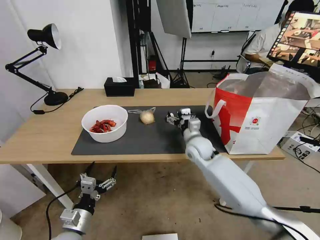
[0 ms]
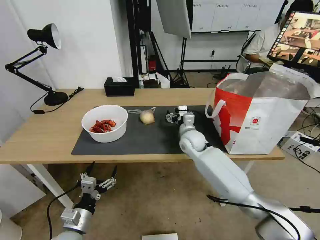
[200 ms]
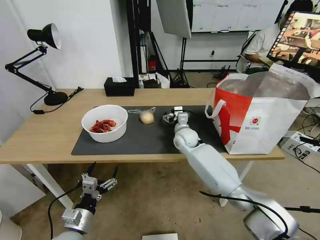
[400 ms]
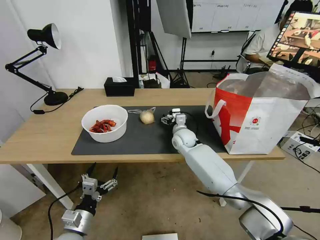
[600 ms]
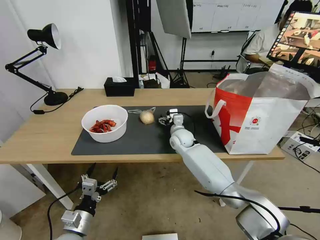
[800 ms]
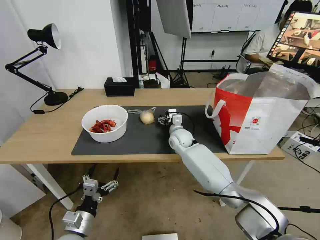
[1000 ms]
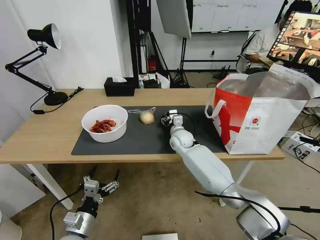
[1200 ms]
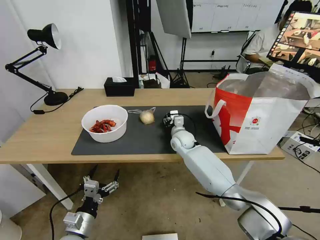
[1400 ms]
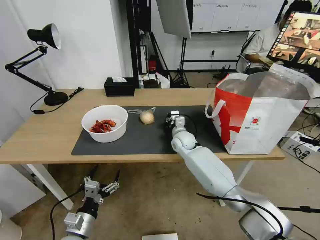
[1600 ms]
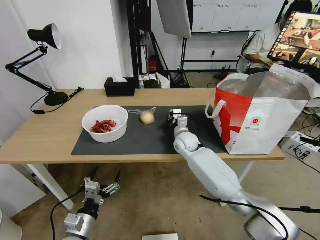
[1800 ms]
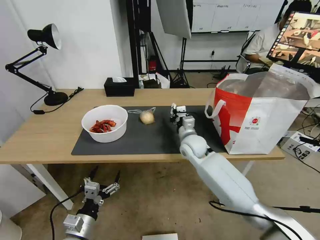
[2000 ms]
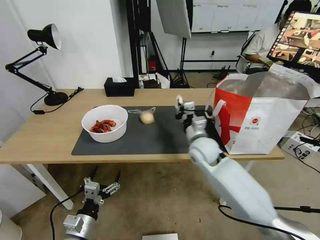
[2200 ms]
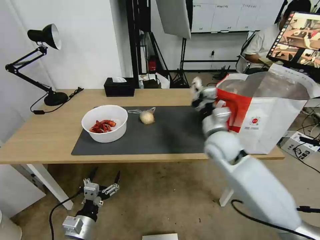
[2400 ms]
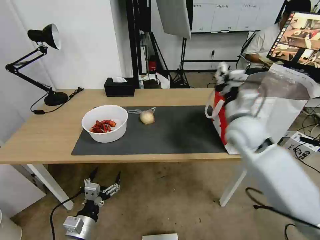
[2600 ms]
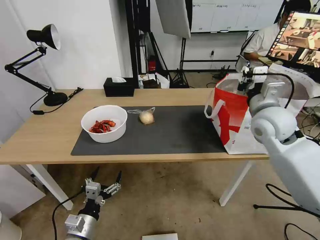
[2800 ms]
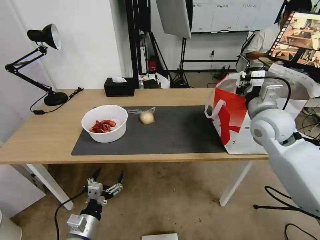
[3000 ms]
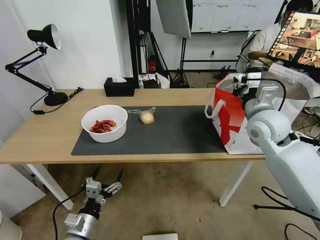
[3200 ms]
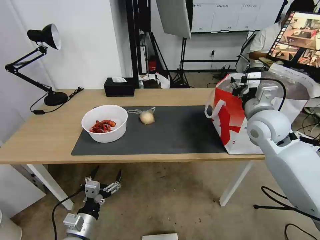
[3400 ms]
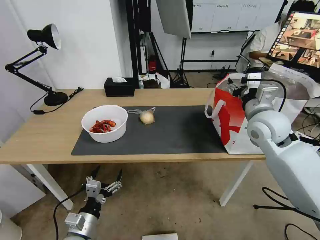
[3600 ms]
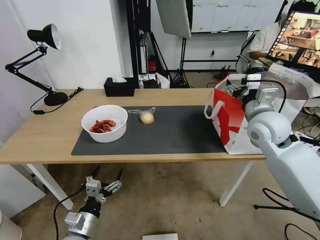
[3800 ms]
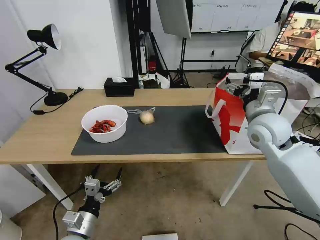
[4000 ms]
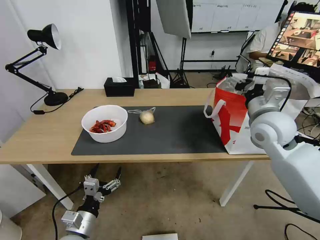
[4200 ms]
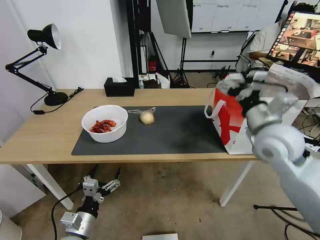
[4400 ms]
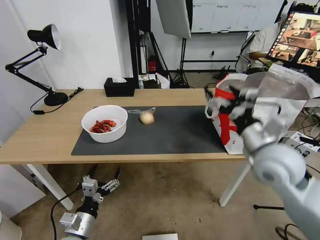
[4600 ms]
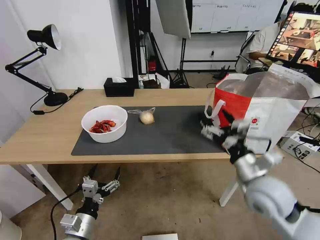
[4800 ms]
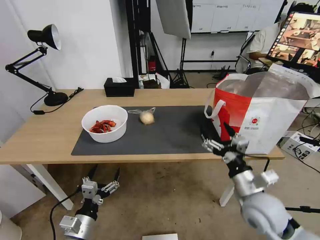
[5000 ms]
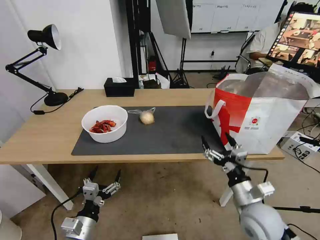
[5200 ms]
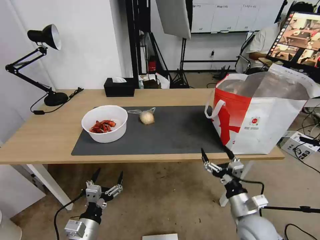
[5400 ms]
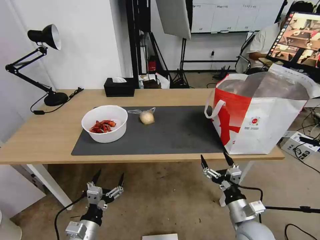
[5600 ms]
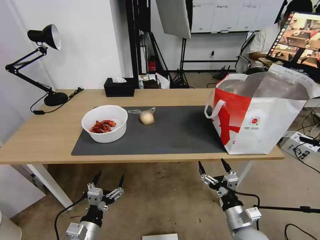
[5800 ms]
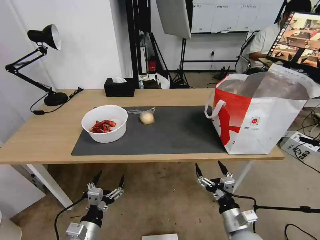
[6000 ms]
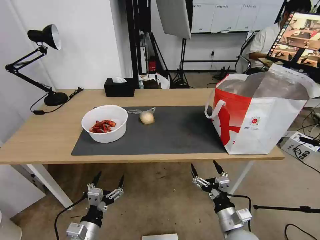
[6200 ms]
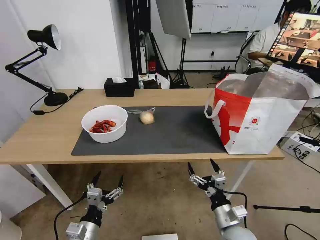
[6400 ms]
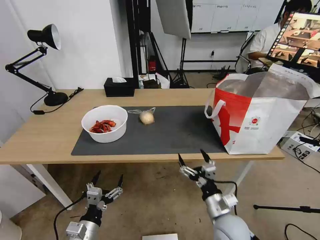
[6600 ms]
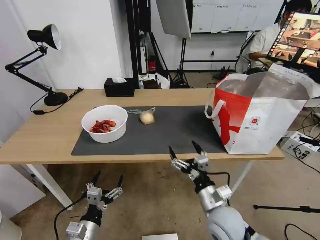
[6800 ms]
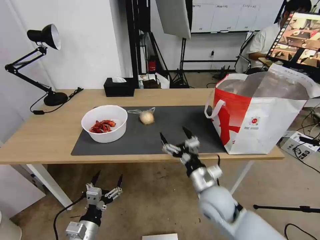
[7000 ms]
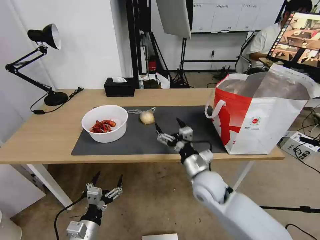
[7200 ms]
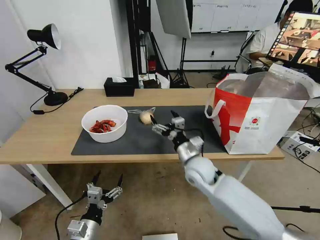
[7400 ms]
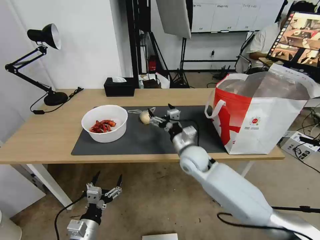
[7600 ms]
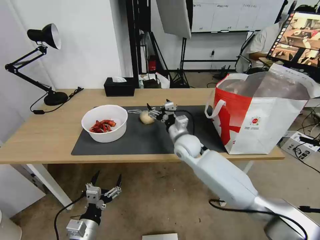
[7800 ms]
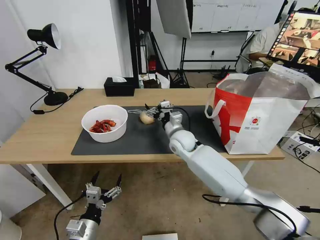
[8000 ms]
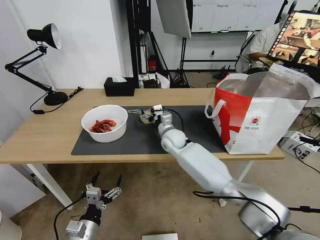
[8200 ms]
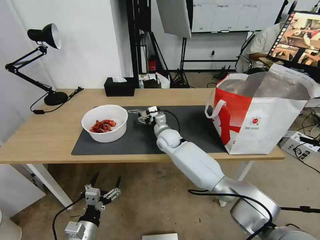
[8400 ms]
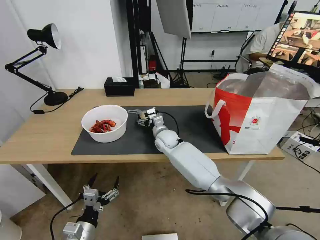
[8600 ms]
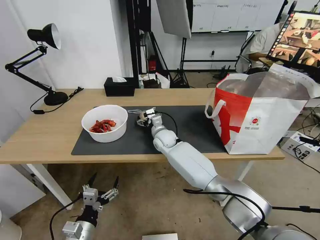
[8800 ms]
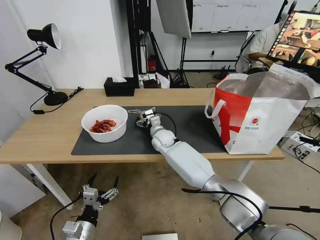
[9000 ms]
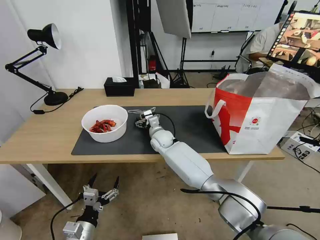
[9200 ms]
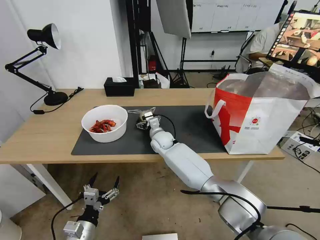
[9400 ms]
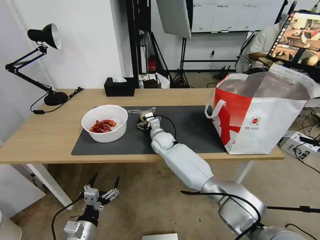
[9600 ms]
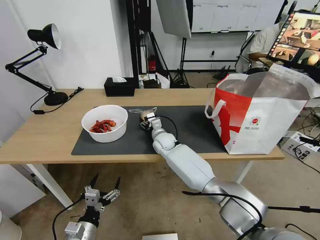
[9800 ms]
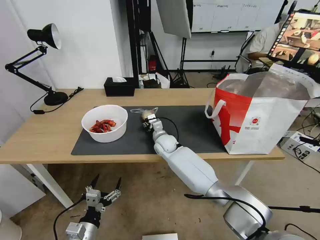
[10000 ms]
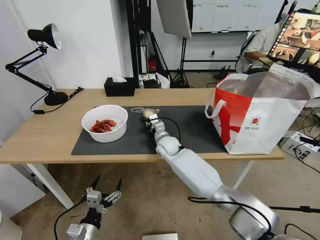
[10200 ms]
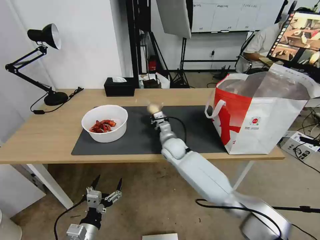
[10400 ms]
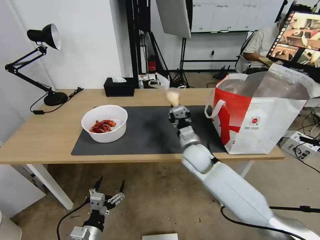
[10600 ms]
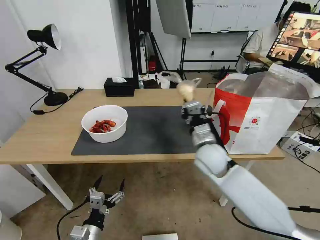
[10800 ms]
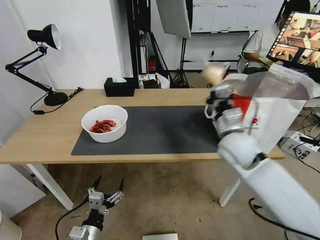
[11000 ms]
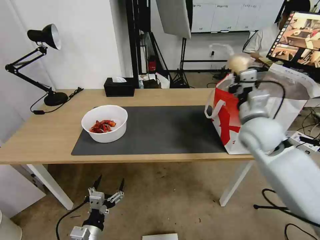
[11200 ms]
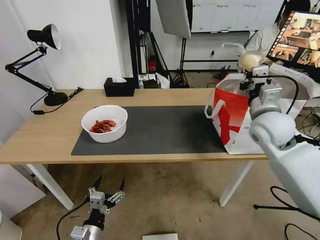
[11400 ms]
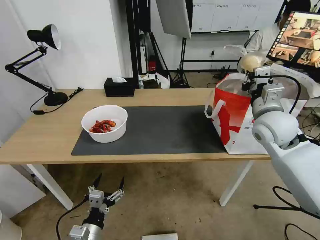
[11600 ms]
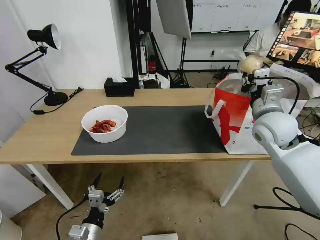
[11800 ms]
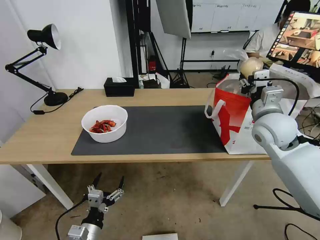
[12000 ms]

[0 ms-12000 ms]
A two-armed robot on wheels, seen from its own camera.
Task of the whole recording: Pick up the trash from the table and place it into the takeout bag.
0 ms to 1600 ms: The right gripper moves forward, approximately 5 cm, and closes up.
1600 ms to 3000 ms: The right gripper travels upward, to the right and backward by about 30 cm.
3000 ms to 4400 ms: The right gripper goes approximately 5 cm backward, and opens its fingers.
4400 ms to 6000 ms: The right gripper is displaced downward and backward by roughly 35 cm.
6000 ms to 7600 ms: The right gripper heads forward, to the left and upward, covering about 30 cm.
7600 ms to 9000 ms: The right gripper goes roughly 15 cm forward and to the left.
9000 ms to 10400 ms: The right gripper heads backward and to the right, covering about 10 cm, and closes up.
10400 ms to 12000 ms: The right gripper is displaced to the right and upward by approximately 30 cm, and opens its fingers.

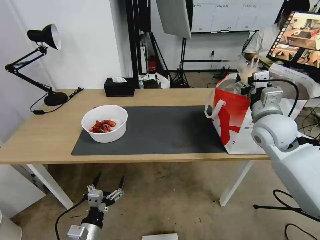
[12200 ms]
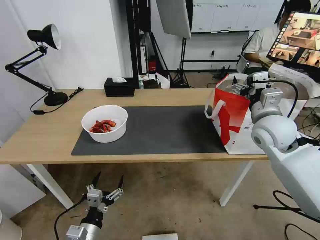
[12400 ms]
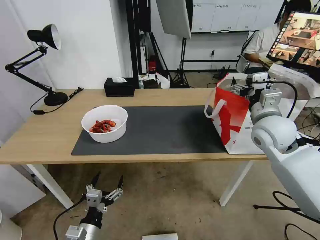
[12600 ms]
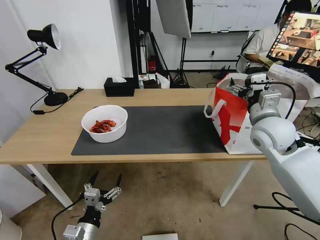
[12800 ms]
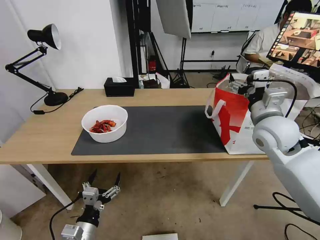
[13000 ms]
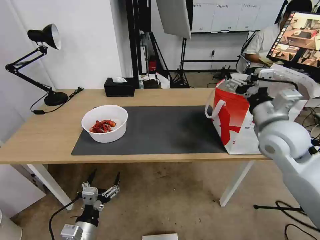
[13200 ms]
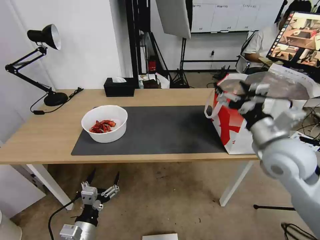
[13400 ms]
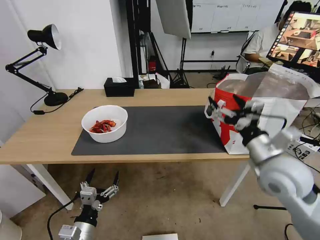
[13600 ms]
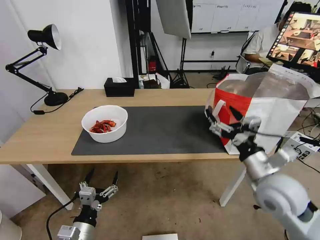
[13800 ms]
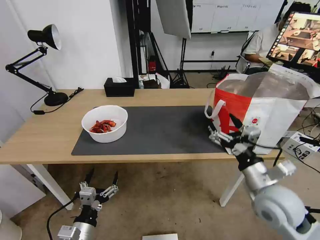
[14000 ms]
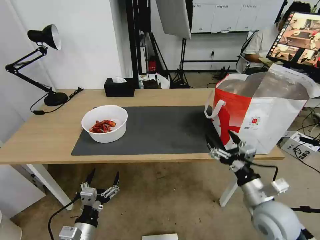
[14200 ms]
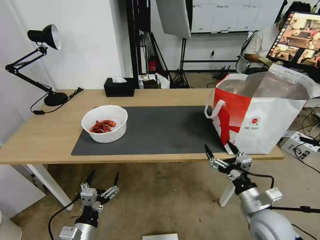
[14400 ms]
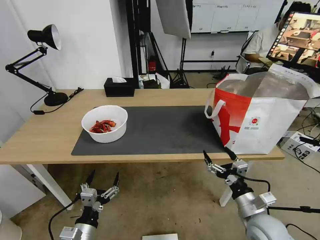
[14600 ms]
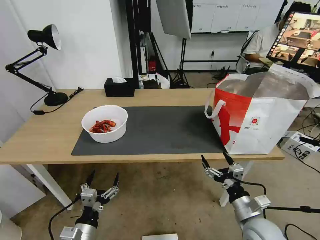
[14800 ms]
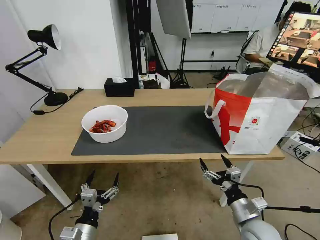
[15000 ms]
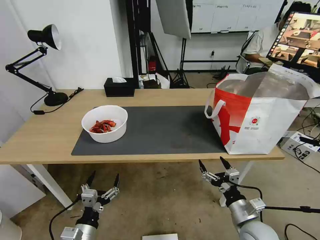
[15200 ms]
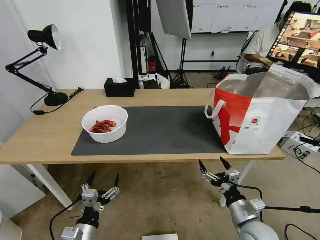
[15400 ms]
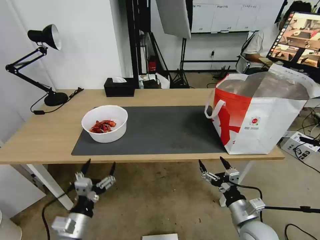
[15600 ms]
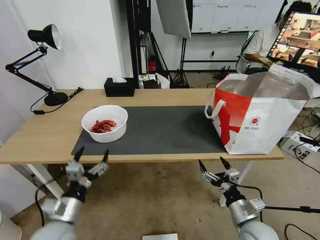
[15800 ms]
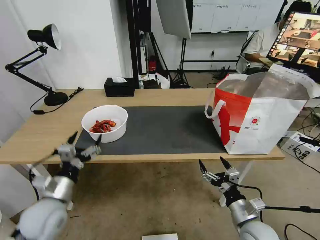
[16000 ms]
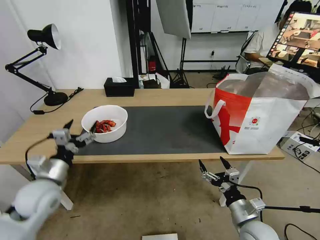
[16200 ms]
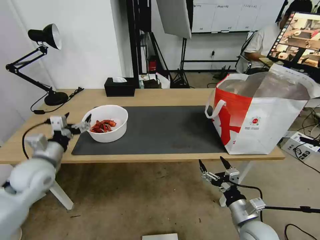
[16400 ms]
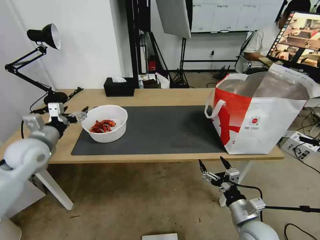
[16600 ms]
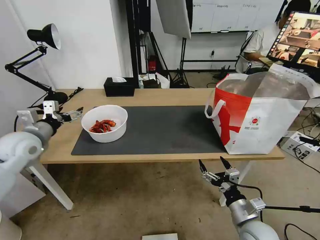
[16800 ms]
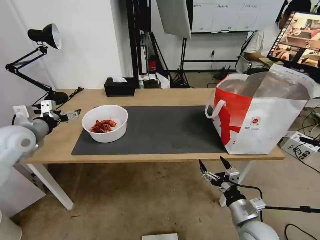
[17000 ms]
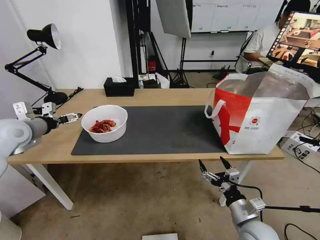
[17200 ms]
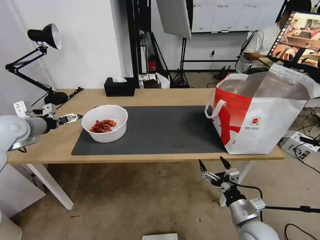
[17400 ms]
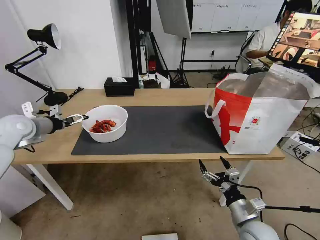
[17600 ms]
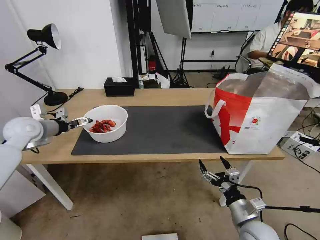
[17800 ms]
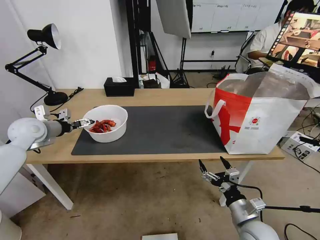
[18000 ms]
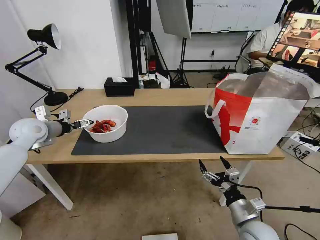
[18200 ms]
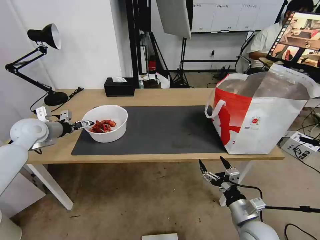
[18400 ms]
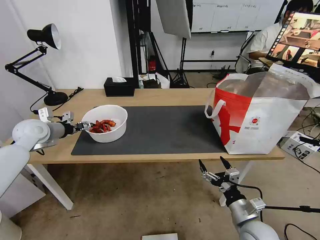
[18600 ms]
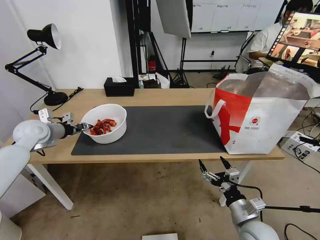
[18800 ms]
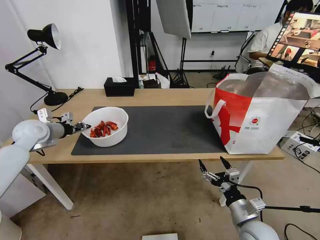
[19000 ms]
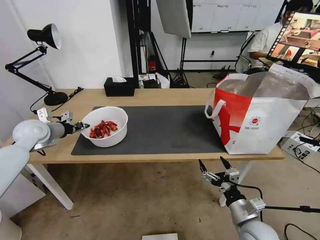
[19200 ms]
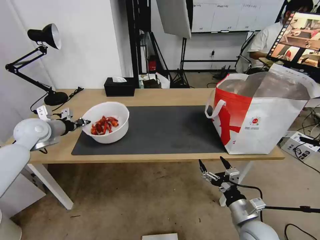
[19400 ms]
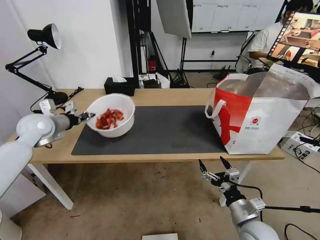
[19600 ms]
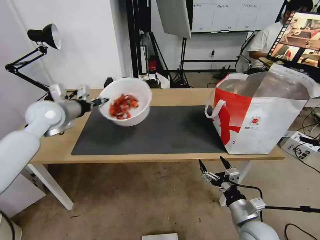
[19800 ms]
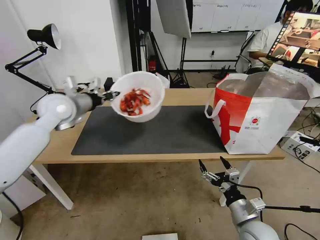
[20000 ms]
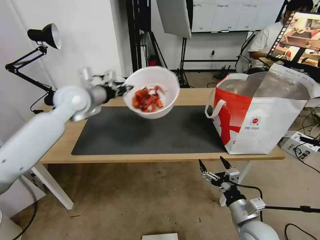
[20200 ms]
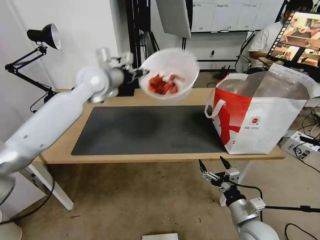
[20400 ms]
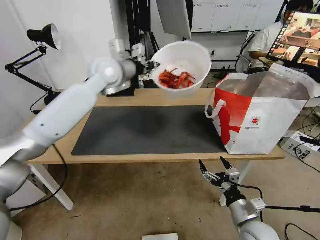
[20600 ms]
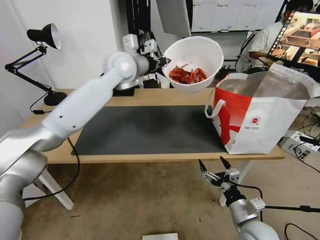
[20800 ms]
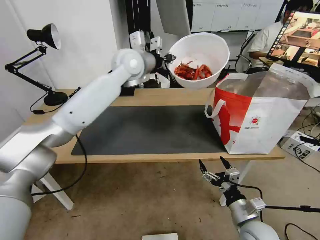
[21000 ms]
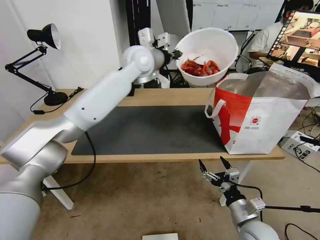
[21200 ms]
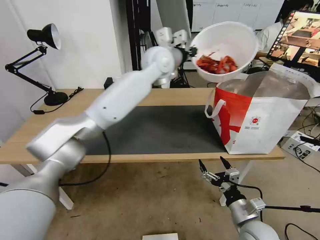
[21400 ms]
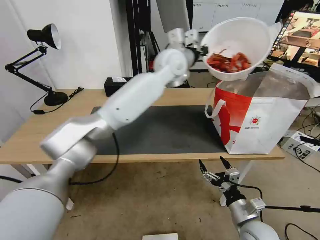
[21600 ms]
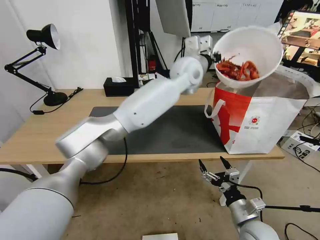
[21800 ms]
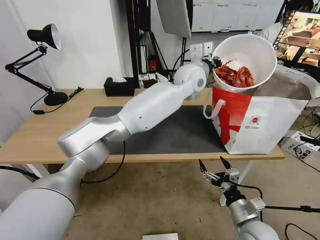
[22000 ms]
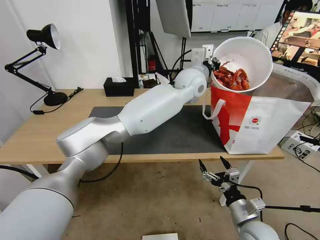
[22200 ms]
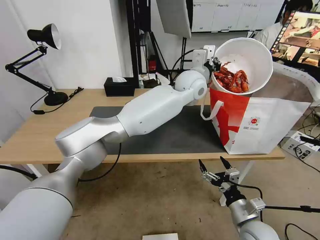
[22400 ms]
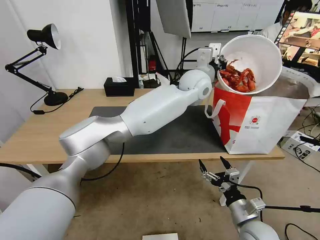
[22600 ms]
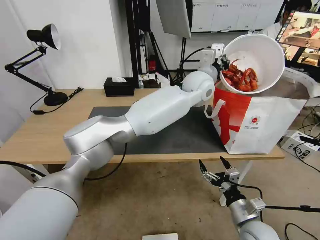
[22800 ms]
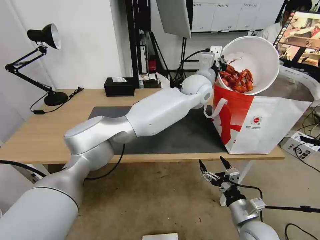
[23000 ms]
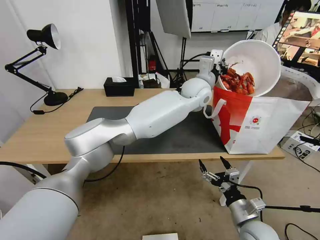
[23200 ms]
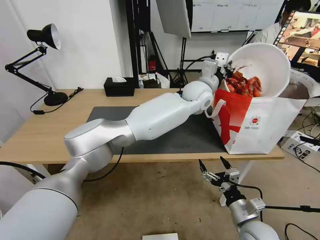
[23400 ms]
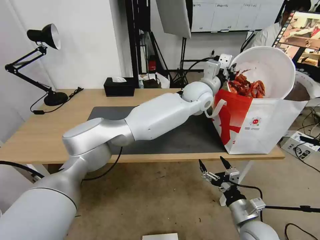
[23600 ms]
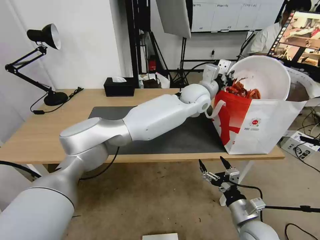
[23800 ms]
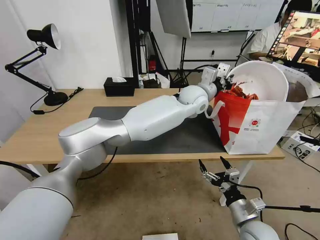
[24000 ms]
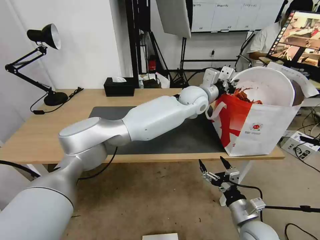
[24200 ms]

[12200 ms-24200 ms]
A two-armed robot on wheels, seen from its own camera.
Task of the whole recording: Pick up the trash from the table and place it into the takeout bag.
12200 ms to 13800 ms: The right gripper is displaced backward and downward by about 15 cm.
13800 ms to 15200 ms: The right gripper goes about 20 cm downward and backward.
15200 ms to 16600 ms: The left gripper goes some 35 cm forward, upward and to the left.
16600 ms to 18200 ms: The left gripper moves forward, about 10 cm.
18200 ms to 19800 ms: The left gripper travels to the right and upward by some 10 cm, and closes its fingers.
19800 ms to 21200 ms: The left gripper is displaced to the right and upward by about 35 cm.
21200 ms to 22600 ms: The left gripper is displaced to the right by about 15 cm.
22600 ms to 24200 ms: The left gripper shifts roughly 5 cm downward.
